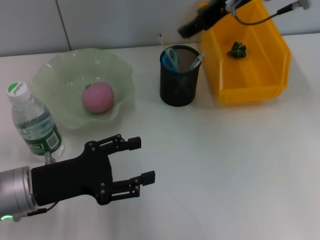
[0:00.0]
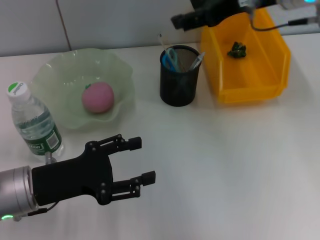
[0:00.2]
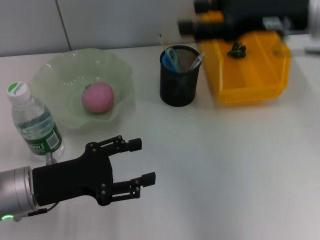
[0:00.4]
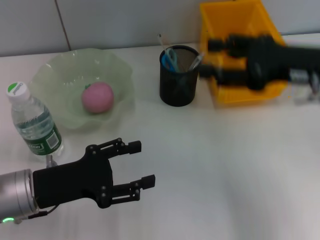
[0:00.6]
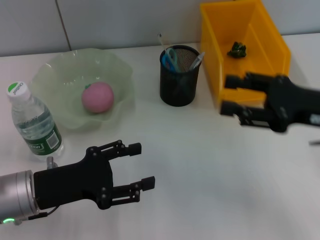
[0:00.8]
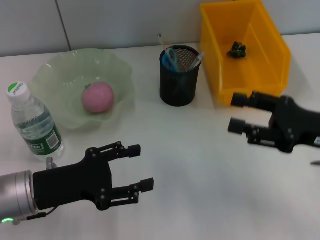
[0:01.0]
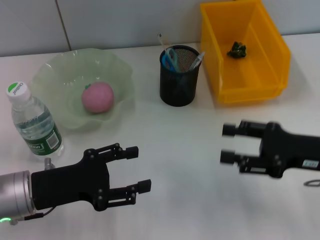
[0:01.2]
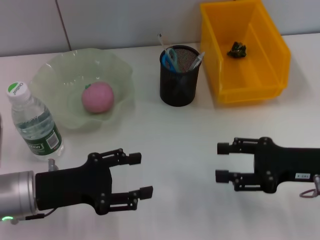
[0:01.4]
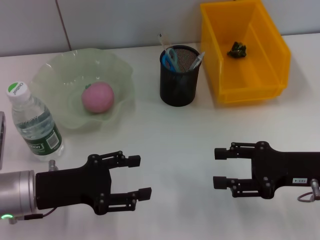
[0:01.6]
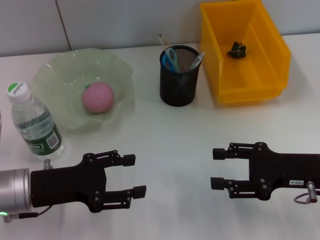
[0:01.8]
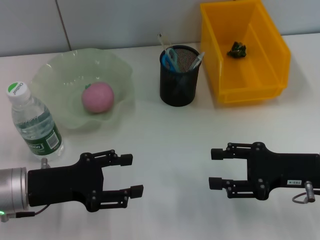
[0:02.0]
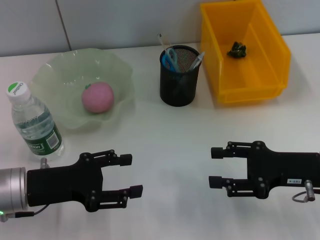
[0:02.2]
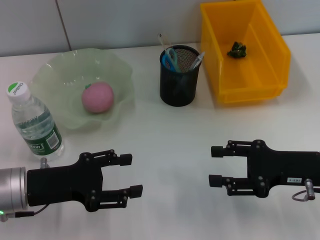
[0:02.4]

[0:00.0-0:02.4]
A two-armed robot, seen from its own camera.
0:00.0 to 0:01.2: The right gripper is displaced downward, backward and to the right by roughly 30 cm.
0:01.2 to 0:02.4: The grippers move only a little.

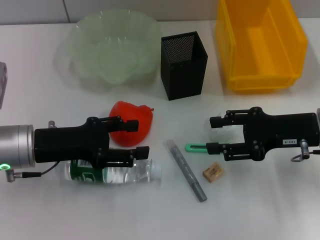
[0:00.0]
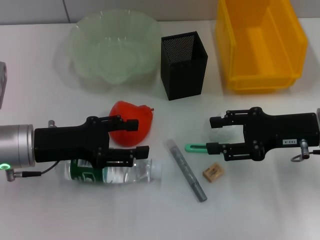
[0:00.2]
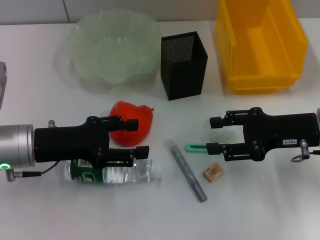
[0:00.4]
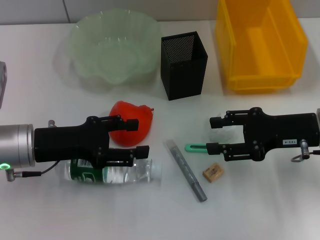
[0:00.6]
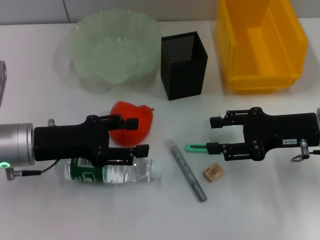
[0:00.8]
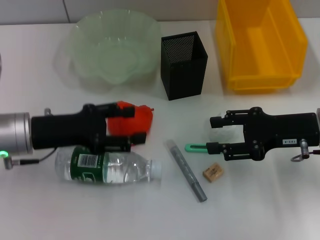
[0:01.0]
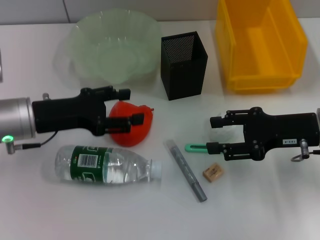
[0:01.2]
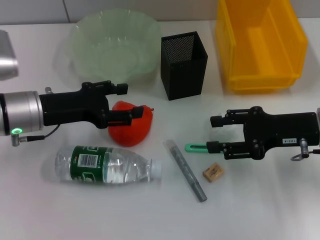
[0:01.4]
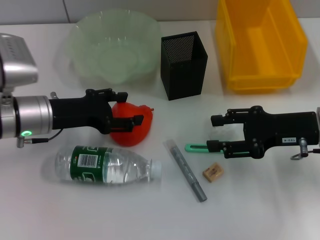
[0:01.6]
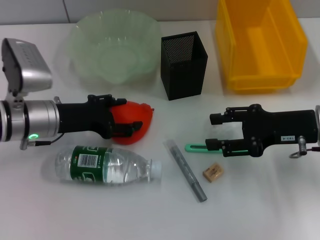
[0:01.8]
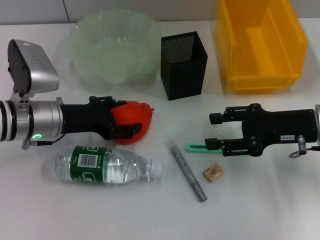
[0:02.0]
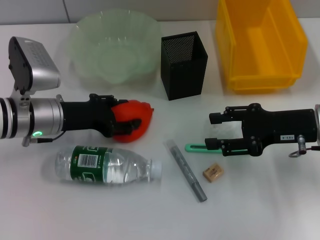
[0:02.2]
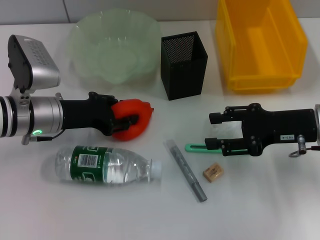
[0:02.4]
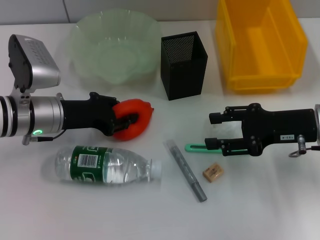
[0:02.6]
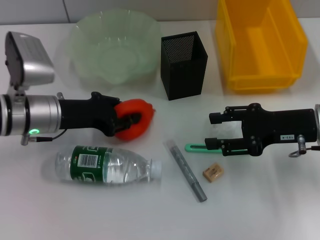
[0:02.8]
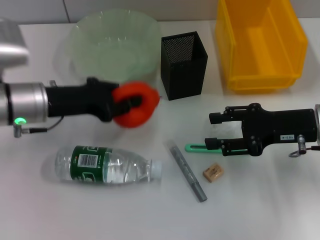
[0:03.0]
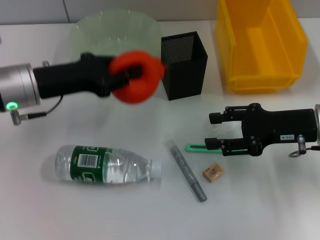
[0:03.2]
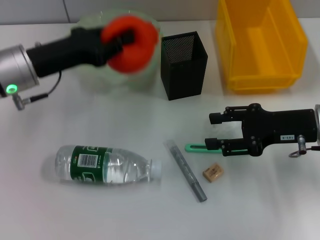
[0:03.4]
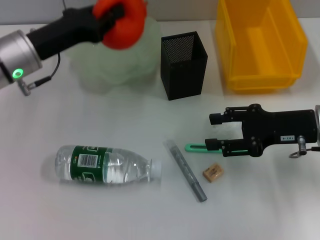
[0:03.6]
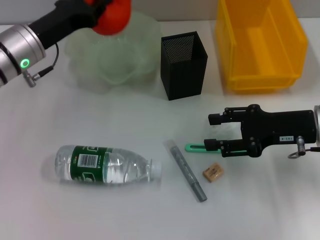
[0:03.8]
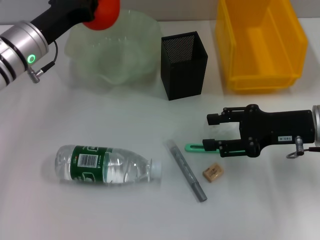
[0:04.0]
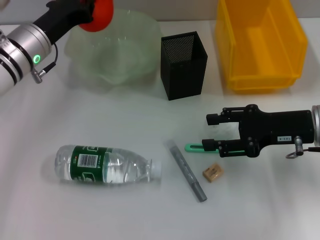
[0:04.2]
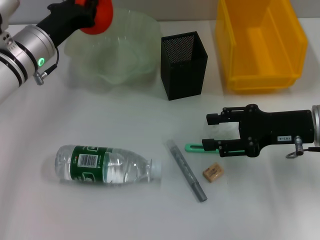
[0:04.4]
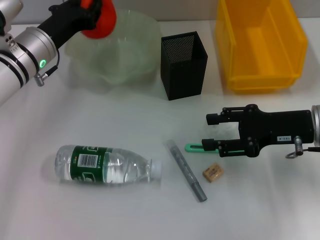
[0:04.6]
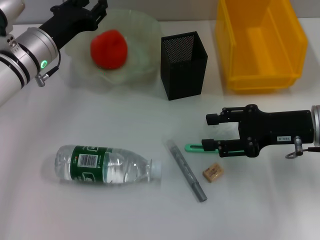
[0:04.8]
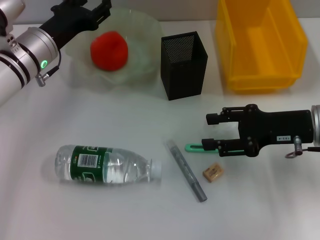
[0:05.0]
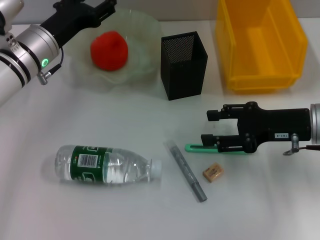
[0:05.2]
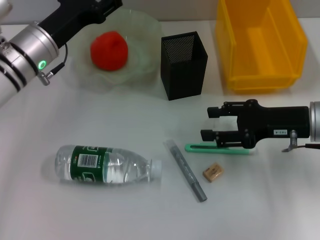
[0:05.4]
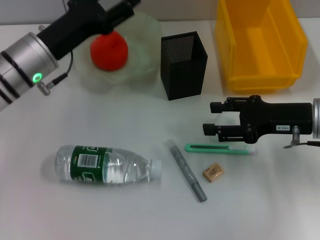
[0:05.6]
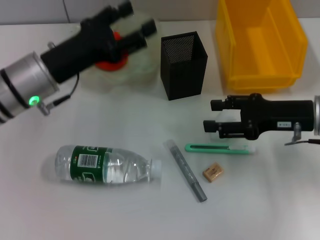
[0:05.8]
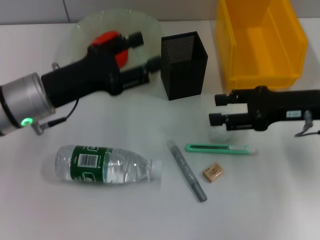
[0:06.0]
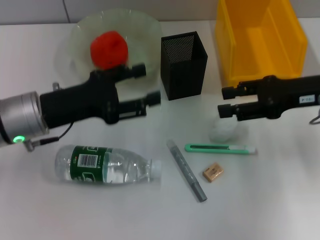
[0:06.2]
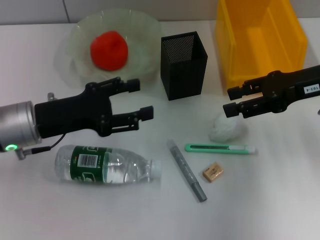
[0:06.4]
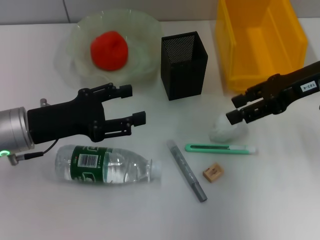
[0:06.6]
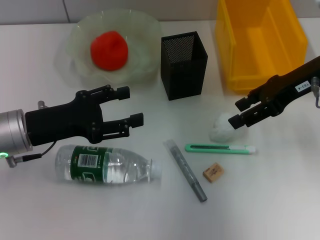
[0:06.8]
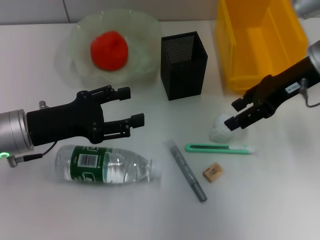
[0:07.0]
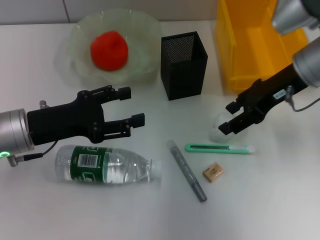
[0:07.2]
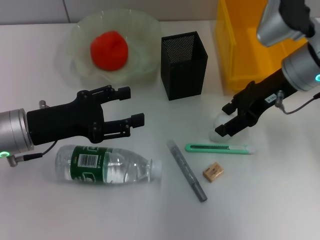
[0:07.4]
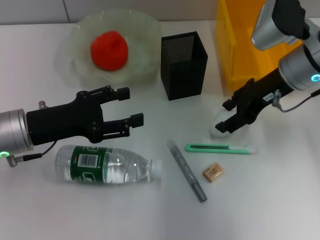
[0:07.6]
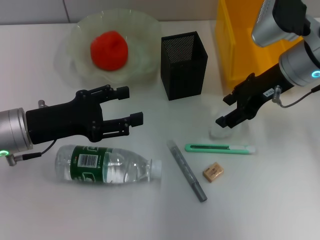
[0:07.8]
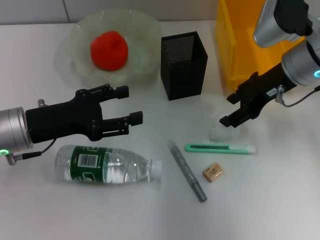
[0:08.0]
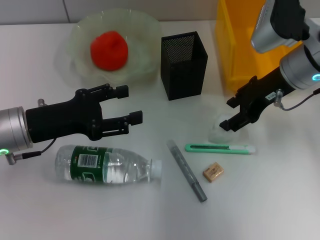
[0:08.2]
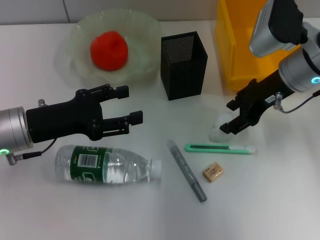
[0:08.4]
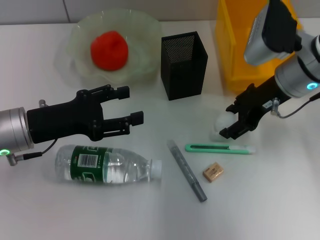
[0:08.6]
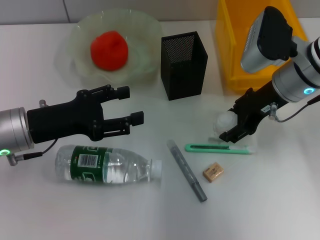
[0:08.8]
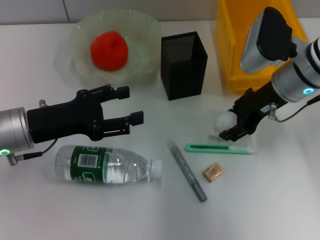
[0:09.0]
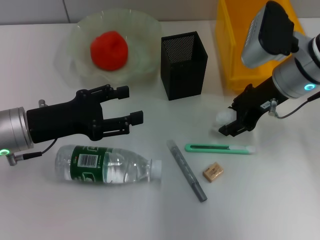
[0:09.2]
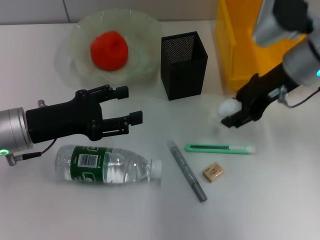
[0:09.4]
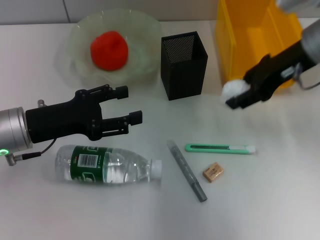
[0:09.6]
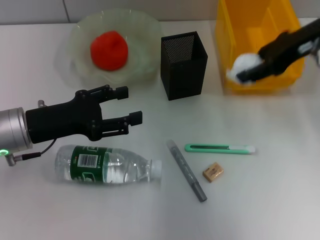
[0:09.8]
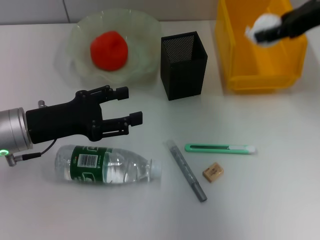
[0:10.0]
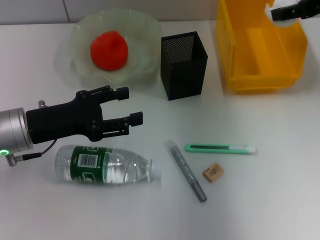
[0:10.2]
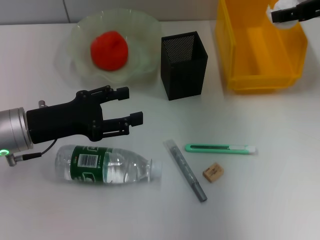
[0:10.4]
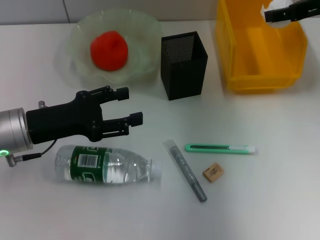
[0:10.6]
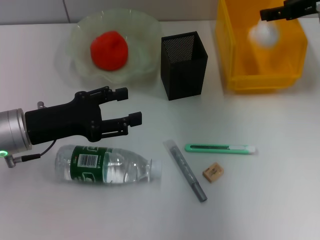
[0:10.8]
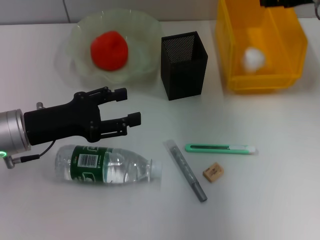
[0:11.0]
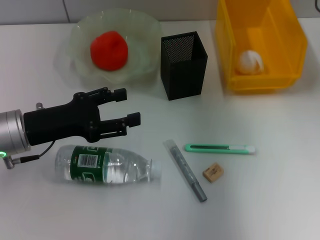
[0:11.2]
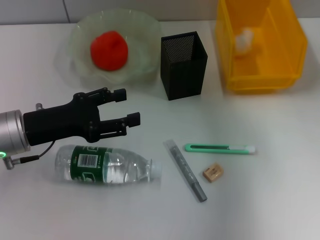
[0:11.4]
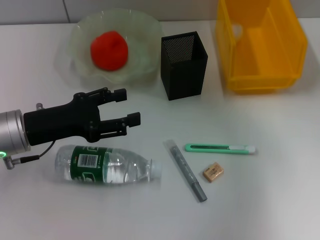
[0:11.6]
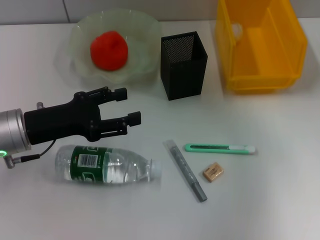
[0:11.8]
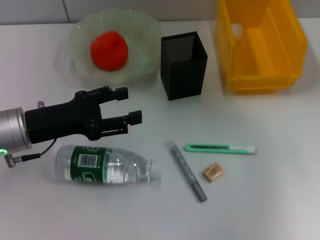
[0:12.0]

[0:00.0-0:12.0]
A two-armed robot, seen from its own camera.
Step, 0:00.0 to 0:02.4: Grab the orange with the left hand.
Step, 0:02.6 to 0:04.6: Place the orange into the fruit bowl with the left hand.
Step, 0:04.8 to 0:08.8: Grab the paper ball with the right hand.
Step, 0:09.2 to 0:10.8: Place the paper ball into the trash can with the right hand.
0:00.0 to 0:01.6: The left gripper heads forward, covering approximately 5 cm.
0:01.6 to 0:03.0: The left gripper closes up.
0:03.0 to 0:04.4: The left gripper heads forward, covering some 5 cm.
0:04.4 to 0:06.0: The left gripper moves backward, about 10 cm, and opens up.
0:06.0 to 0:07.6: The right gripper moves to the left and forward, about 10 cm.
0:07.6 to 0:09.0: The grippers stay close to where they were, moving slightly.
0:09.0 to 0:10.4: The right gripper travels to the right and upward by some 15 cm.
0:10.4 to 0:12.0: The right gripper opens its fingers.

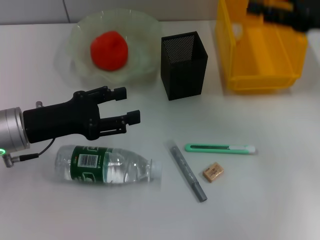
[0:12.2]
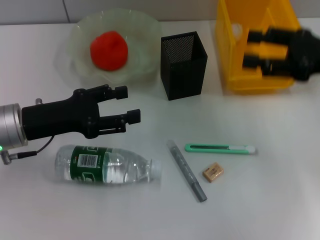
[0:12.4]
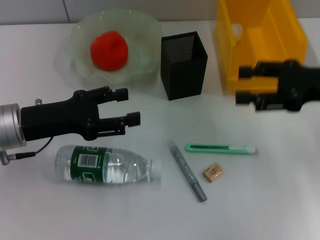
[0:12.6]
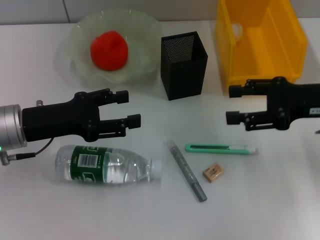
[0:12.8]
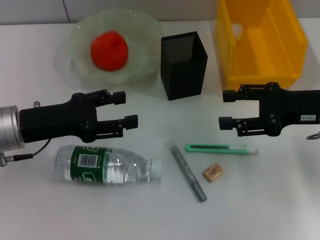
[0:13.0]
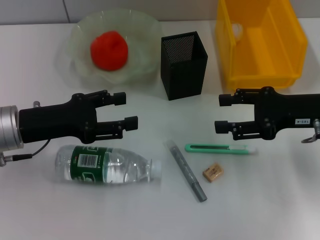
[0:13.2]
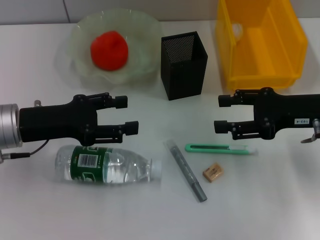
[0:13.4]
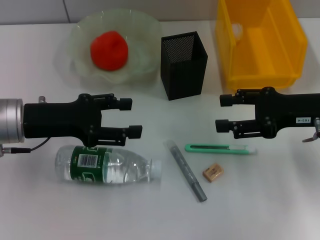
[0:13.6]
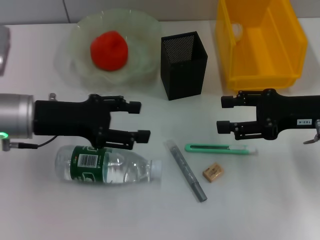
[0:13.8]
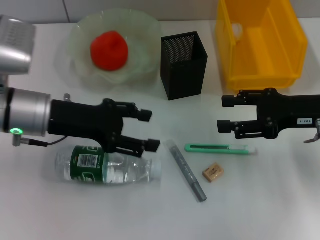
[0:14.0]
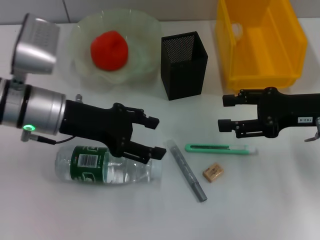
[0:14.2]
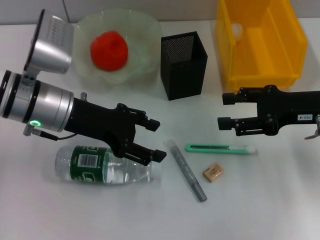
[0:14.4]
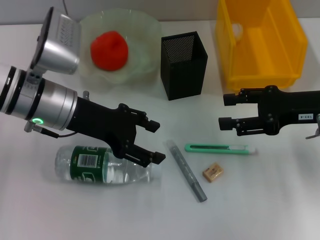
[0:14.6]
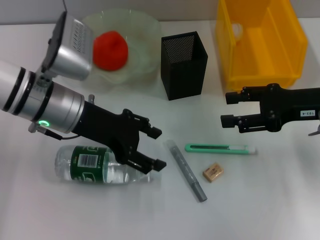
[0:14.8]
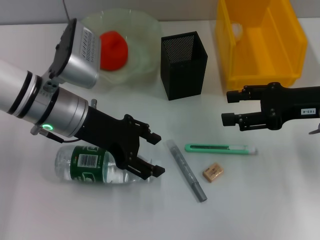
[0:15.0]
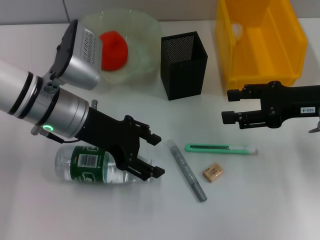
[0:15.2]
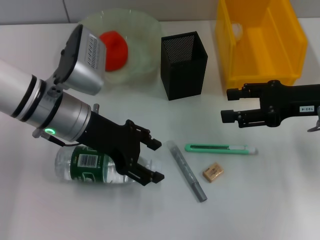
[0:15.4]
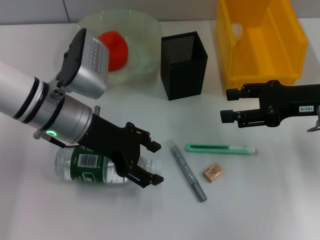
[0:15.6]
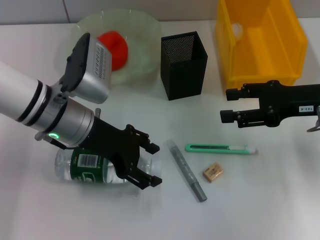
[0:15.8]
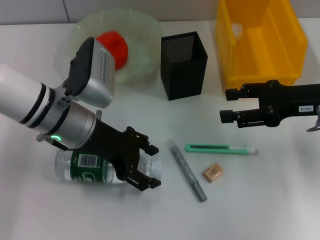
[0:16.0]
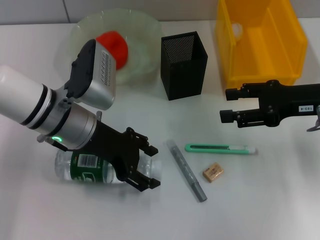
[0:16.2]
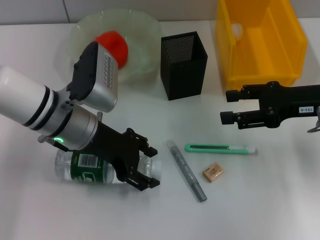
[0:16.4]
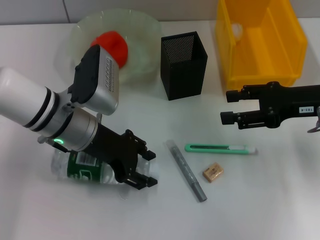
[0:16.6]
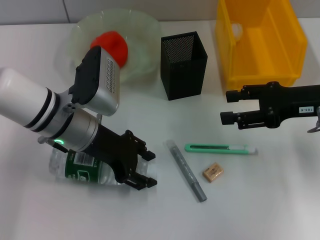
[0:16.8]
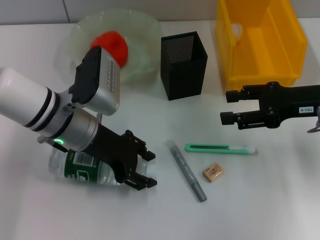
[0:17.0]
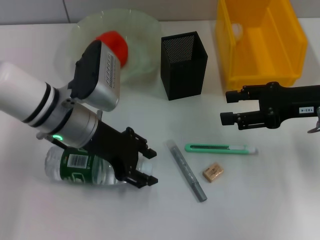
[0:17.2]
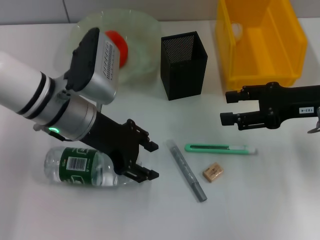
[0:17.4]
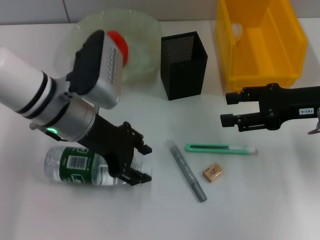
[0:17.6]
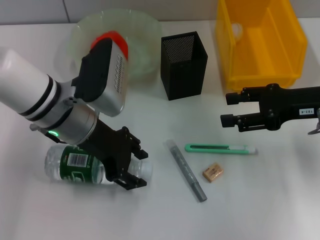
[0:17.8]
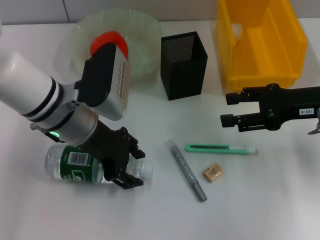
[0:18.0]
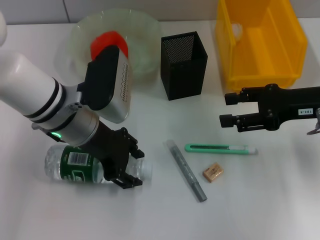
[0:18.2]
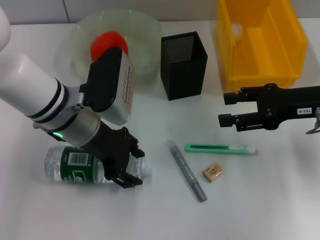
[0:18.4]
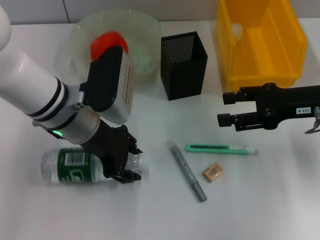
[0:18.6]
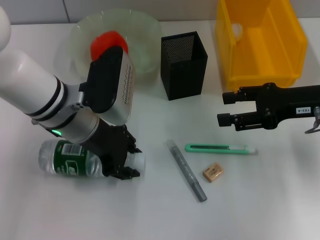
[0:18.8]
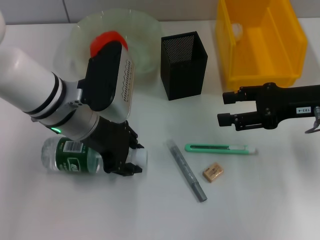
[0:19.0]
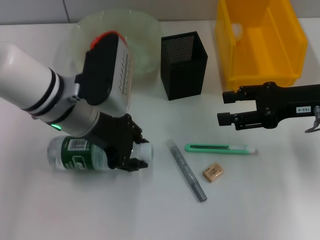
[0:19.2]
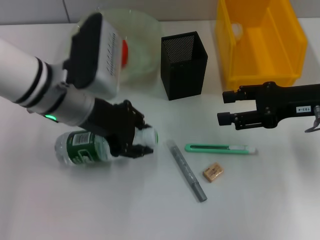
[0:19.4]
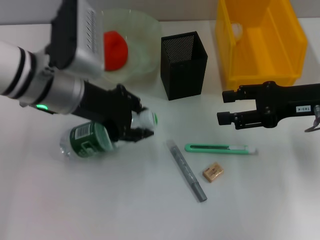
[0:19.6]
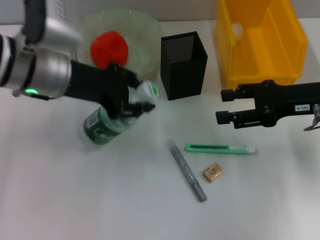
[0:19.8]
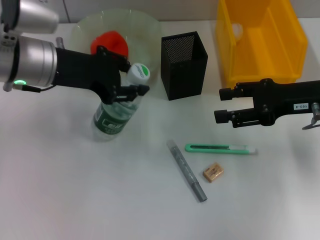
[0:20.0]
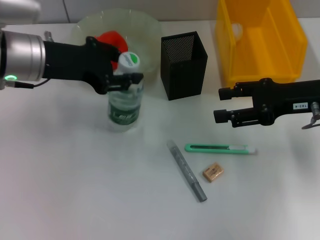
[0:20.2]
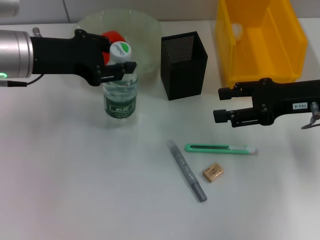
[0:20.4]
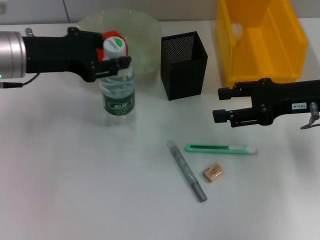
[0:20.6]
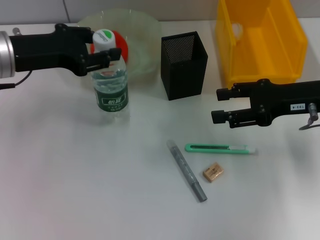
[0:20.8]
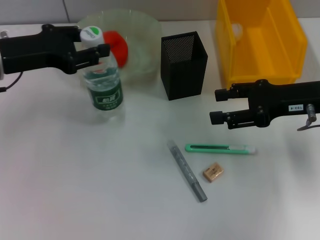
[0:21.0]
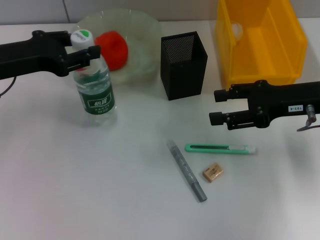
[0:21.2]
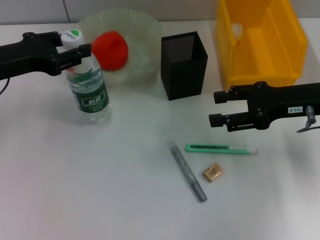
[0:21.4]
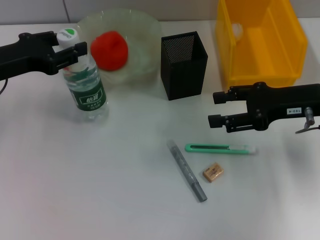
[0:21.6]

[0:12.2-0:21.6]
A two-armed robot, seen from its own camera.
Step, 0:12.2 to 0:18.4: Grab the water bottle with the left hand.
0:12.2 to 0:13.8: The right gripper is displaced downward by some 5 cm.
0:13.8 to 0:15.4: The left gripper shifts approximately 5 cm to the right.
0:15.4 to 0:17.0: There are only small adjustments of the grippers.
0:17.0 to 0:18.4: The grippers move only a little.
0:18.4 to 0:20.0: The left gripper is displaced upward and to the left by approximately 10 cm.
0:20.0 to 0:21.6: The left gripper shifts some 10 cm to the left.
